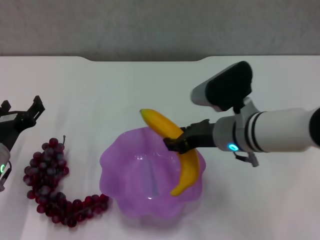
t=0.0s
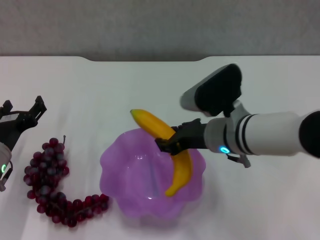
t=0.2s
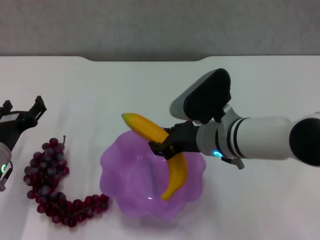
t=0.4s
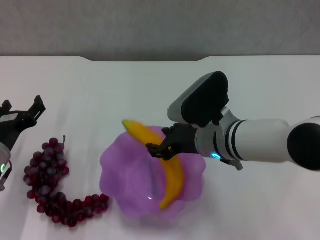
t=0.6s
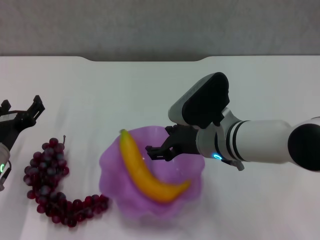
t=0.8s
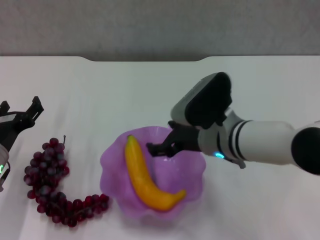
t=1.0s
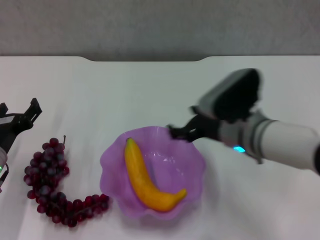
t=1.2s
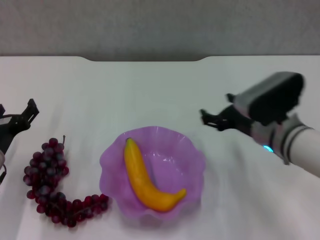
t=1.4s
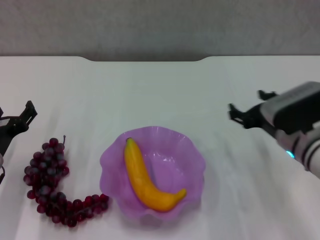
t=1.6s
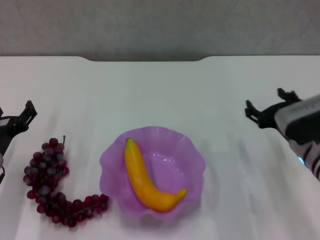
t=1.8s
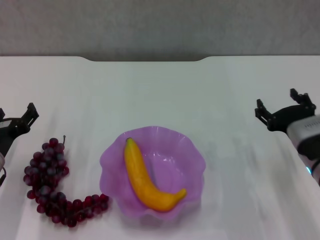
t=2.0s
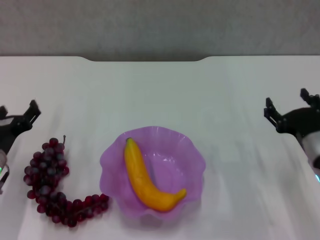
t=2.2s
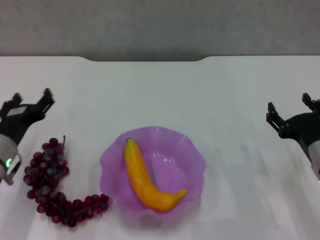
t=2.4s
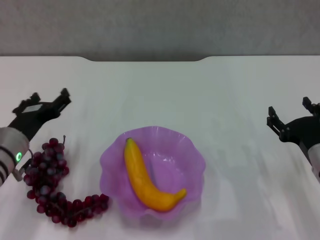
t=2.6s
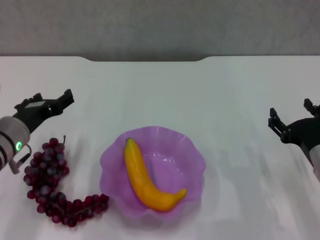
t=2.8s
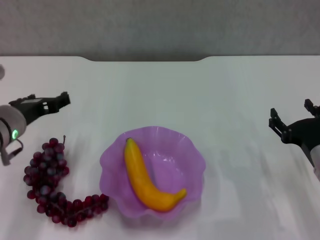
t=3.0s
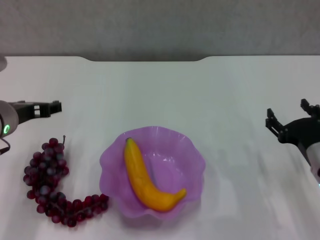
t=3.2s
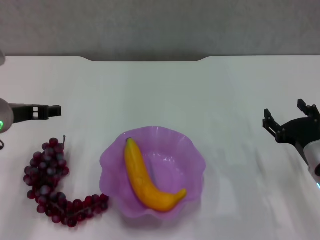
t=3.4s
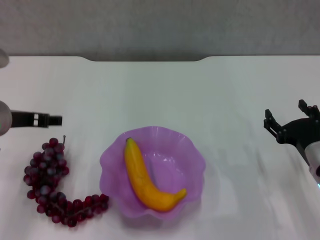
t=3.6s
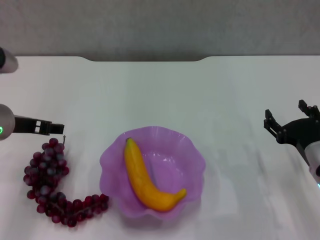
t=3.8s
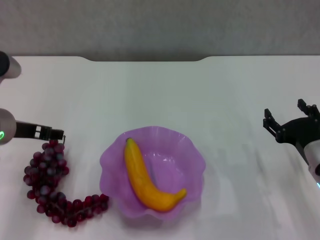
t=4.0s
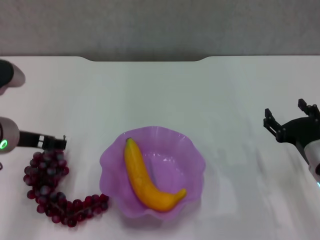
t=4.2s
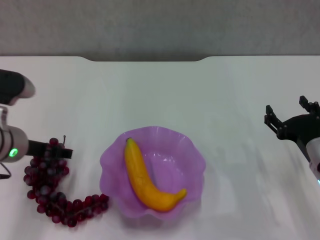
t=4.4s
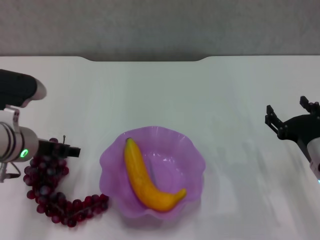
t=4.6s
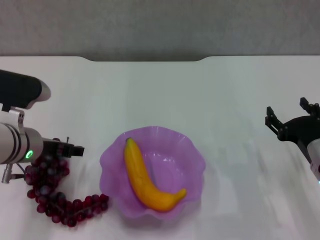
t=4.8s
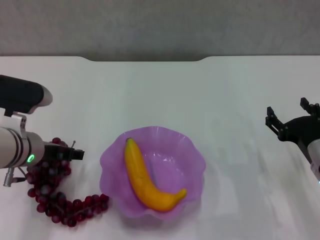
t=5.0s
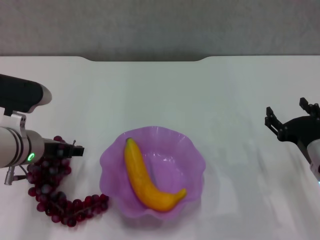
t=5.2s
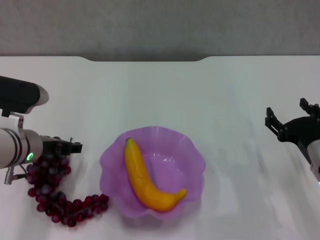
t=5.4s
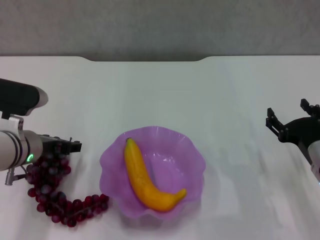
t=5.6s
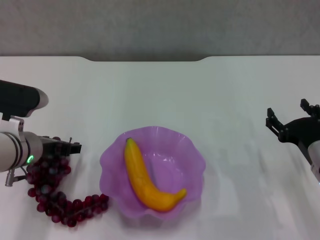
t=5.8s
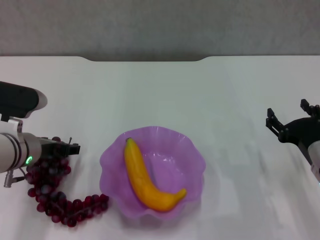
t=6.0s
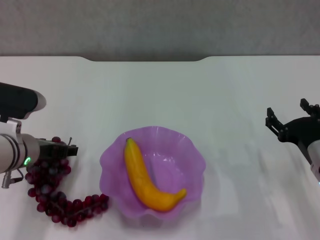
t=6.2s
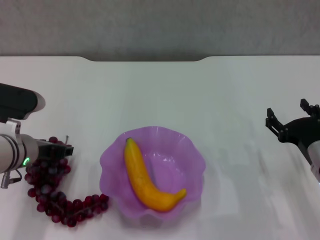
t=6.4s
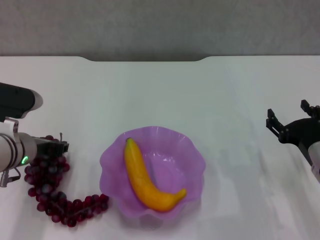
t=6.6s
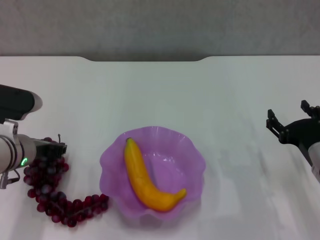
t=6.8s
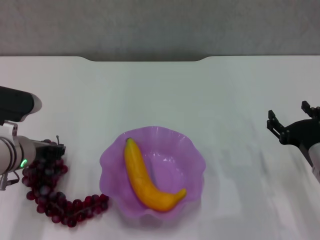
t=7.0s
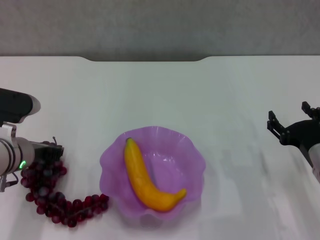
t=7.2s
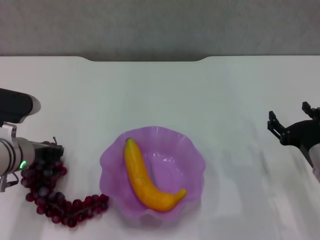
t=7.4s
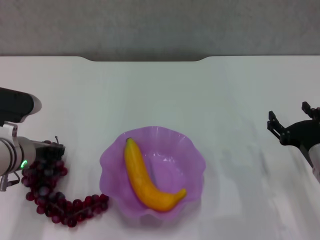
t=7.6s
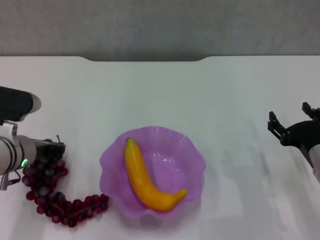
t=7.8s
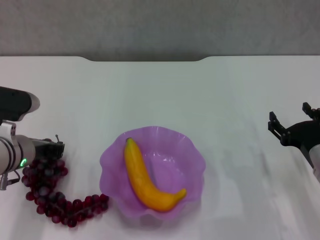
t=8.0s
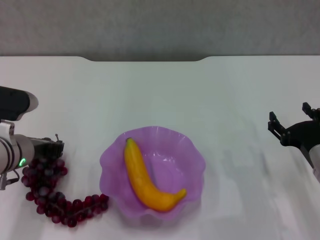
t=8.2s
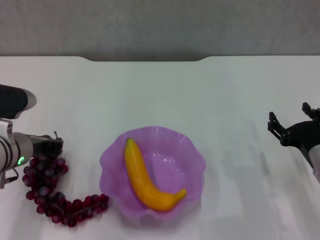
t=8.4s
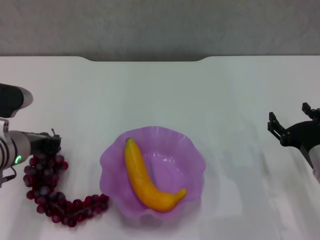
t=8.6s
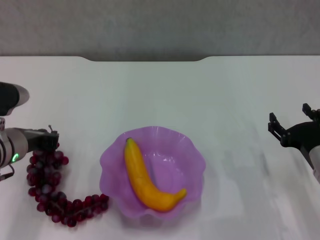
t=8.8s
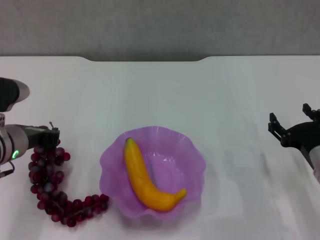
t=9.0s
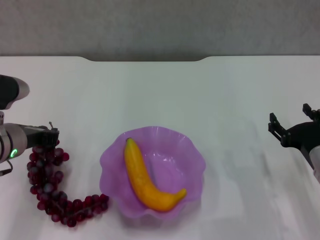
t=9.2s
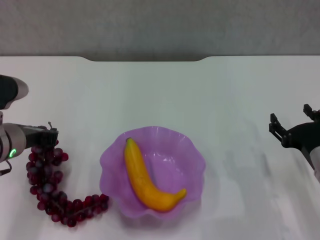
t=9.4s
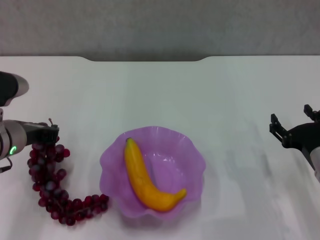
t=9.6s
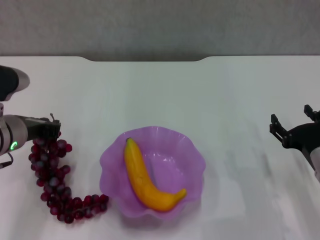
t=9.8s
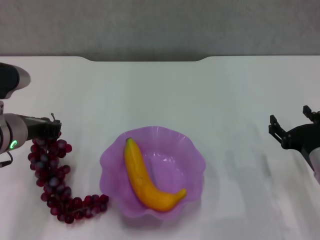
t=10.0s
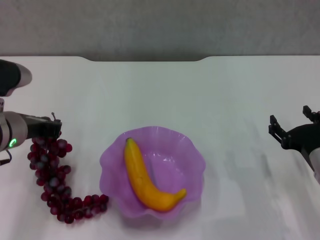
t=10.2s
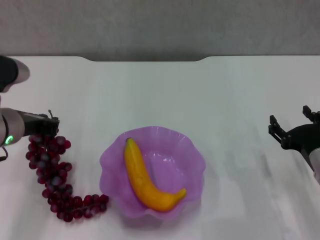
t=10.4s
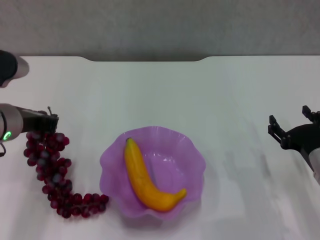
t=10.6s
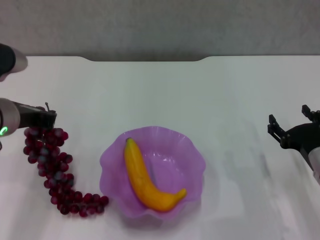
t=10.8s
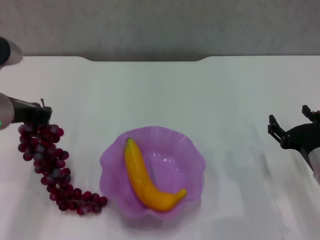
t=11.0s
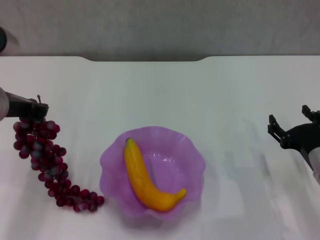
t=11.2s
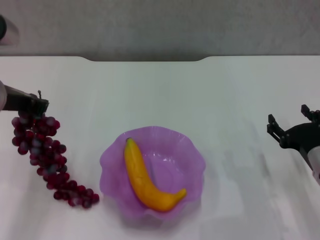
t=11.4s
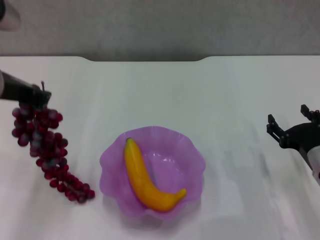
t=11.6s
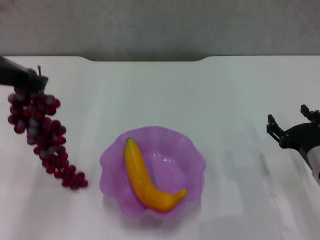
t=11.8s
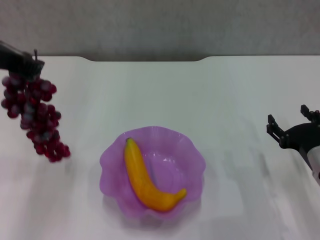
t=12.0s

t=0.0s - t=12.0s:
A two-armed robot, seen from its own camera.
Step, t=1.2s - t=8.0s: Grasp the grape with left gripper.
t=0.0s - t=1.6s: The right gripper shifts some 10 cm to the right, and opens up.
t=1.6s - t=3.0s: The right gripper goes roughly 10 cm backward and to the right; the left gripper heads upward, covering approximately 10 cm.
t=4.4s - t=6.0s: The grippers move only a little.
t=6.0s - t=7.6s: The left gripper closes its fingers.
t=7.6s - t=9.0s: The grippers stay close to where they were, moving slightly.
t=9.0s - t=10.4s: The grippers move only a little.
t=10.4s - t=12.0s: The left gripper travels upward by about 15 cm.

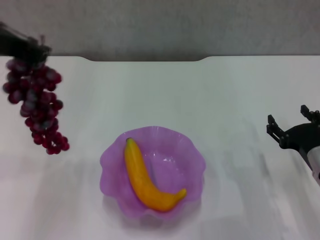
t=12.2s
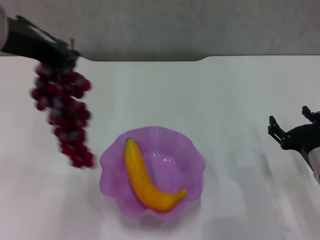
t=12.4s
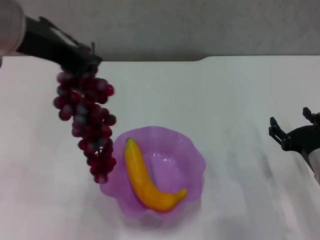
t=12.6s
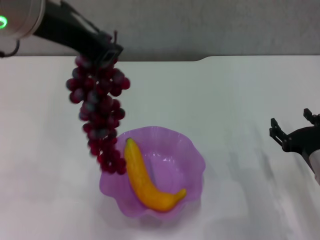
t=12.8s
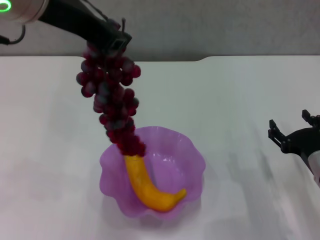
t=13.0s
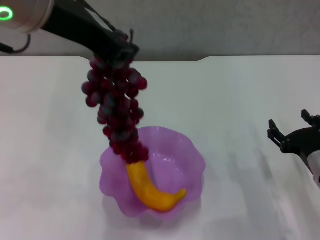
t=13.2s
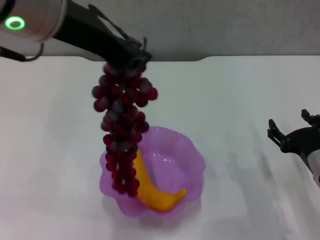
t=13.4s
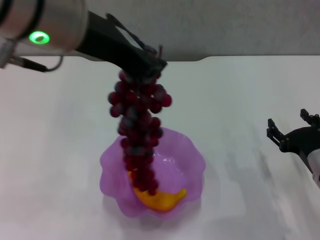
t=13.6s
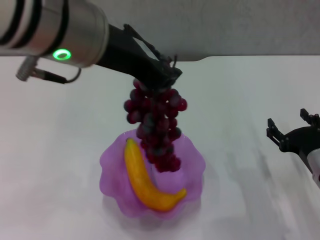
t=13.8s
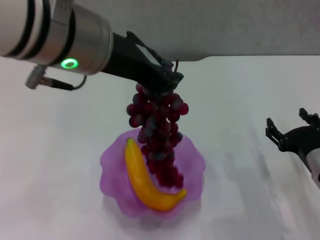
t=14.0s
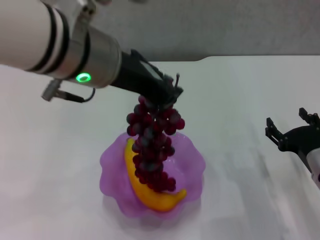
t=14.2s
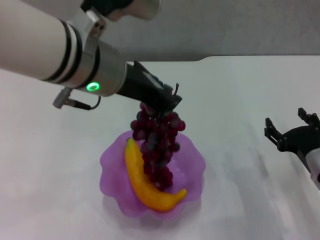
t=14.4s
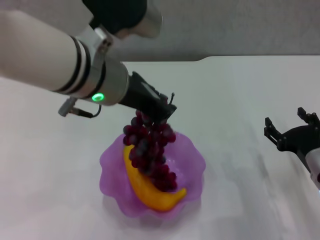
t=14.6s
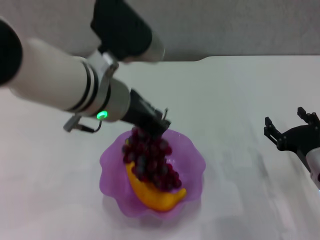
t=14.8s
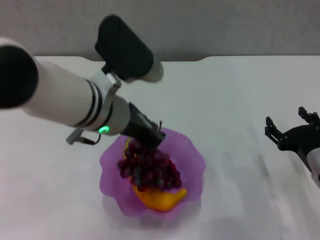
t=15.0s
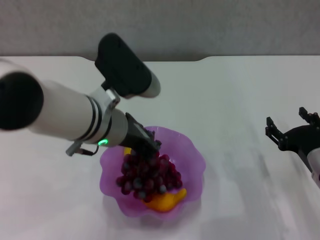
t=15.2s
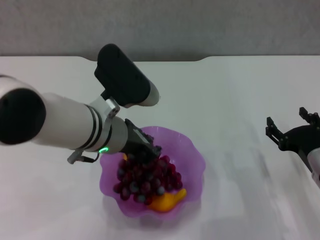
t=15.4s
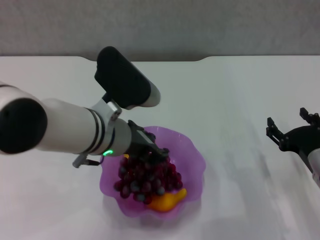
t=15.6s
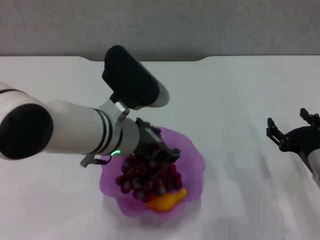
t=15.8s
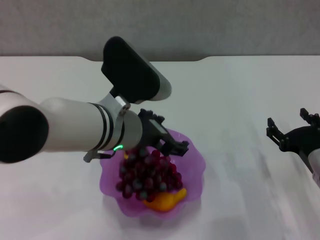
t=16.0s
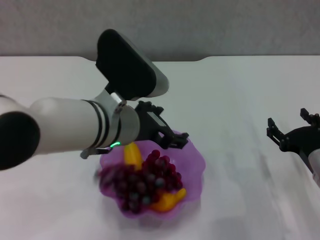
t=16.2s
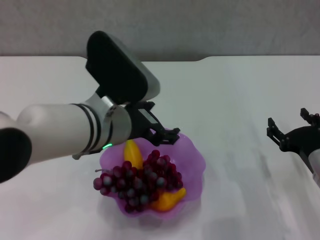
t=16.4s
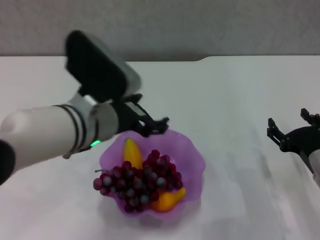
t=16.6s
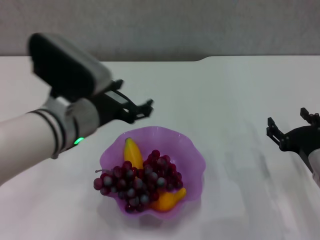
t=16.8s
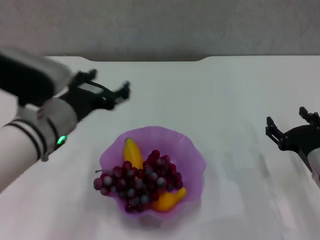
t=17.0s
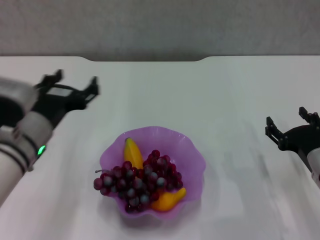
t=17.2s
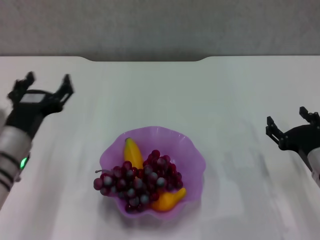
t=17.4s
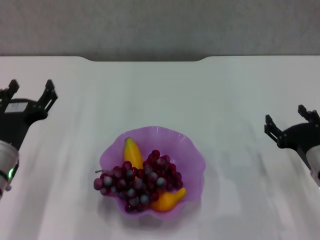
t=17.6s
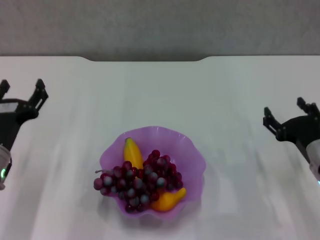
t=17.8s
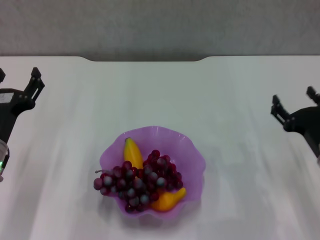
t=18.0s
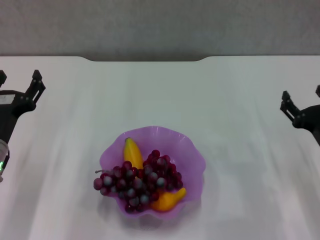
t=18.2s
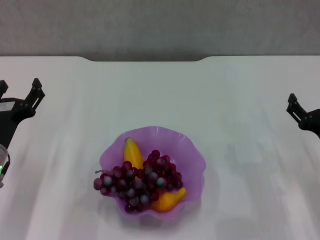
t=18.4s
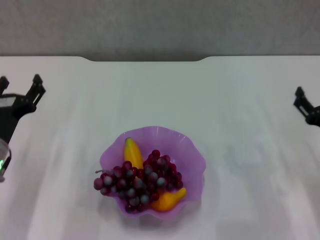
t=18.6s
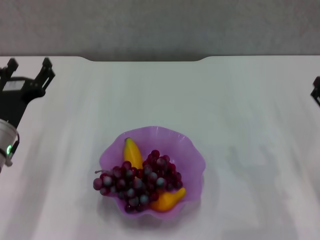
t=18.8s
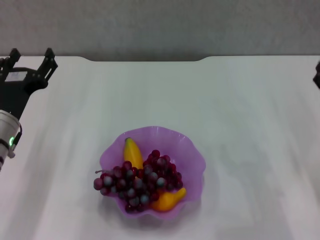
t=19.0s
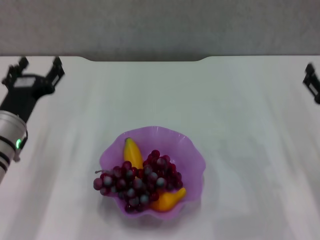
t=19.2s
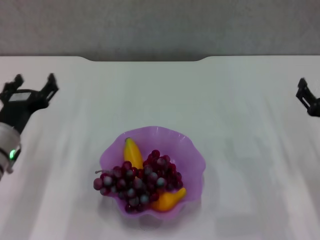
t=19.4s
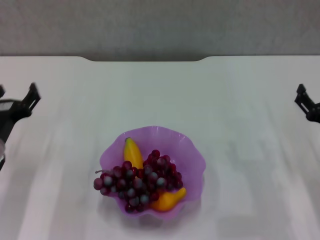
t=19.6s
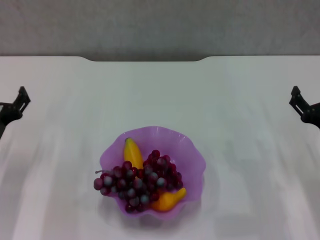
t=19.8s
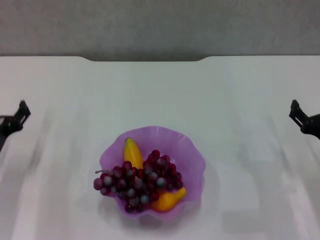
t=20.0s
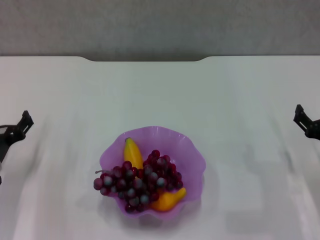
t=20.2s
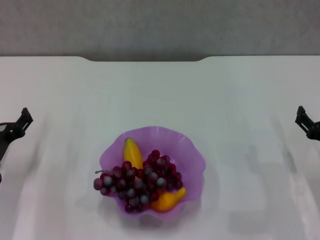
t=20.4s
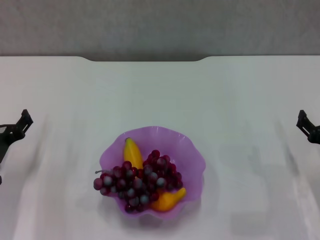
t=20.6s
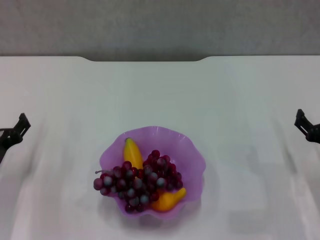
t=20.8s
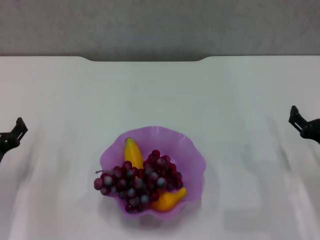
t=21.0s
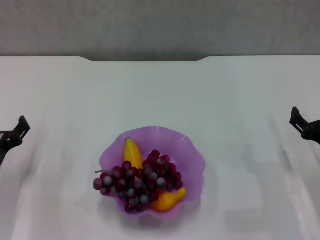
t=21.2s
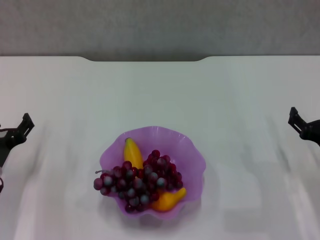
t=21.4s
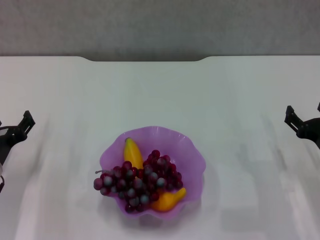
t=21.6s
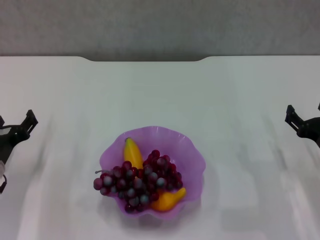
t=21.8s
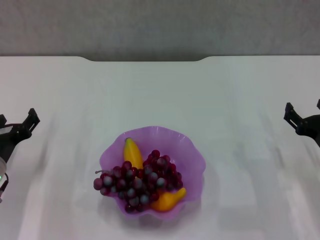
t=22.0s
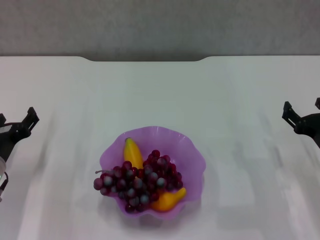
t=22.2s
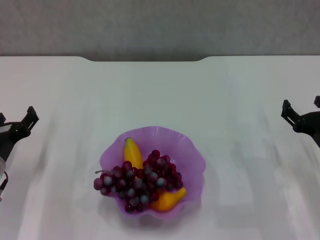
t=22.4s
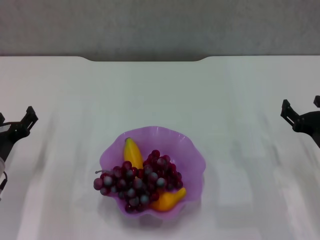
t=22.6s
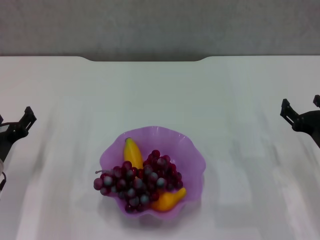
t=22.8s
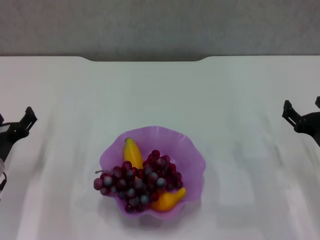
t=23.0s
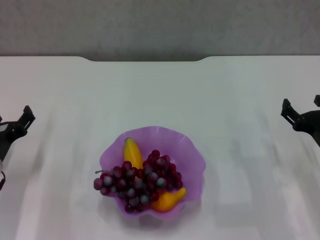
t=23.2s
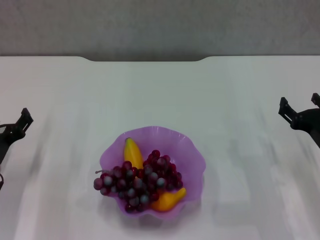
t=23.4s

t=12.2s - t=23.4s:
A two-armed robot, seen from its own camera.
Step, t=12.2s - t=16.2s: Place the grape in the purple plate with left gripper.
t=12.2s - t=13.8s: The left gripper travels to the right by approximately 10 cm.
t=13.8s - t=15.4s: The left gripper is displaced downward by some 20 cm.
t=15.4s - t=17.0s: The left gripper heads to the left, covering roughly 5 cm, and opens its fingers.
t=17.0s - t=18.6s: The left gripper travels to the left and downward by about 15 cm.
t=18.6s - t=20.2s: There are only small adjustments of the grippers.
t=20.2s - t=23.4s: The grippers move only a little.
